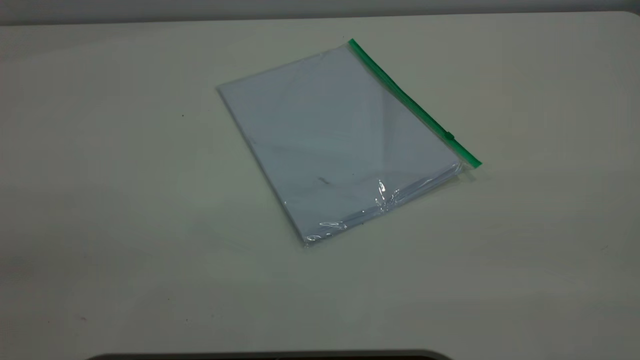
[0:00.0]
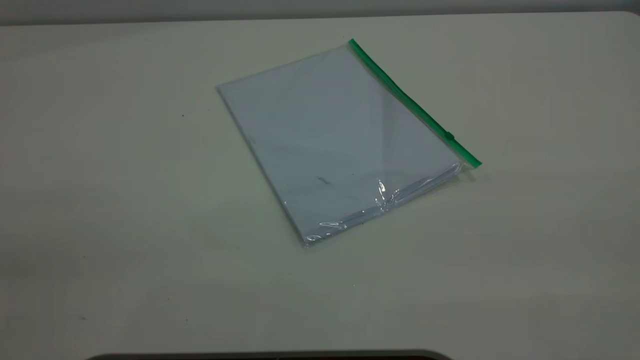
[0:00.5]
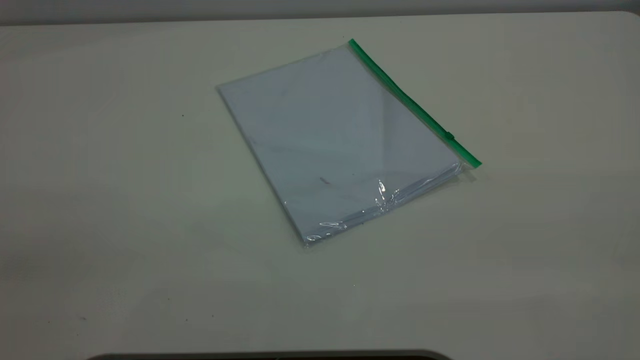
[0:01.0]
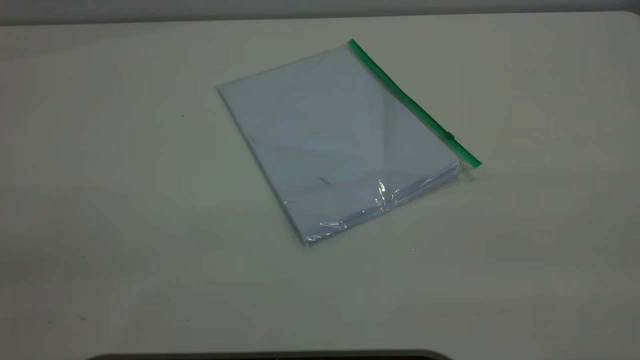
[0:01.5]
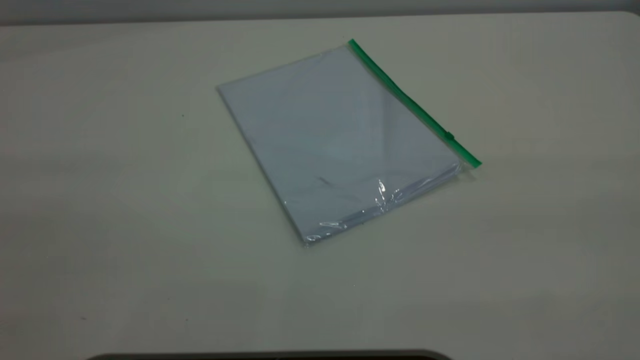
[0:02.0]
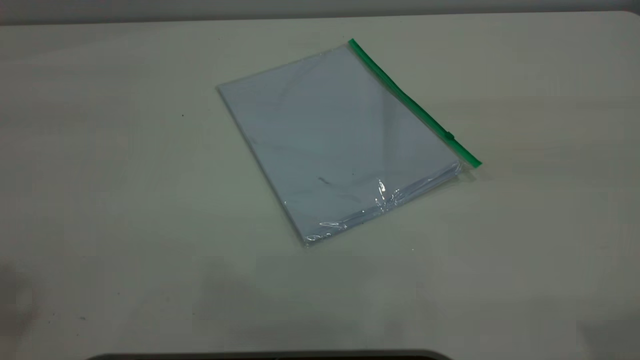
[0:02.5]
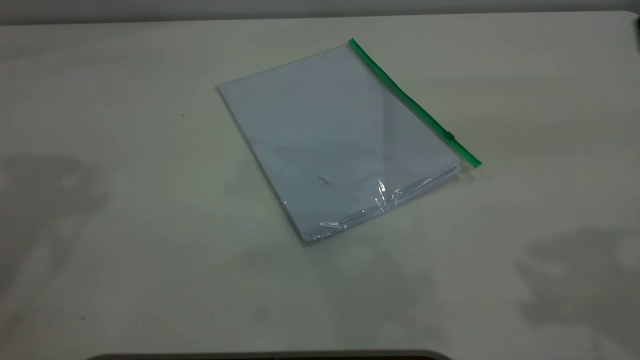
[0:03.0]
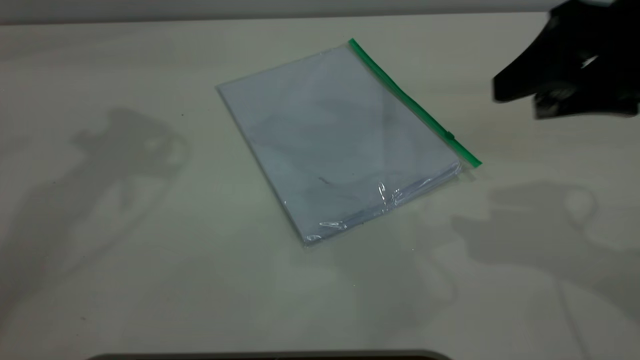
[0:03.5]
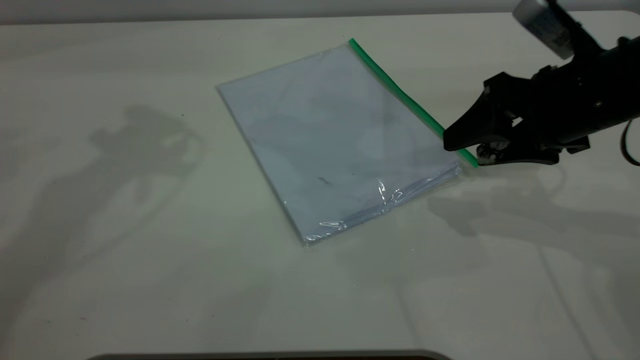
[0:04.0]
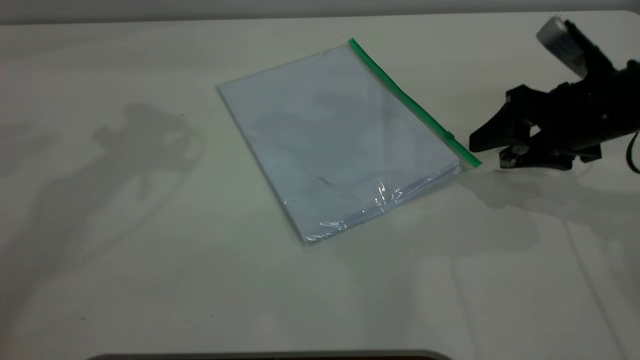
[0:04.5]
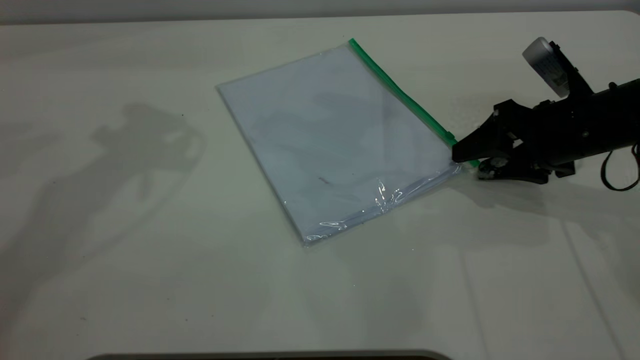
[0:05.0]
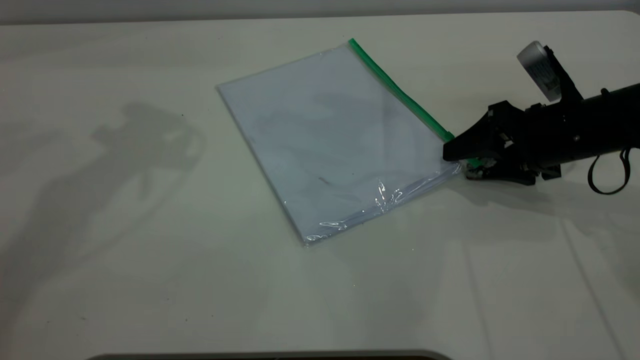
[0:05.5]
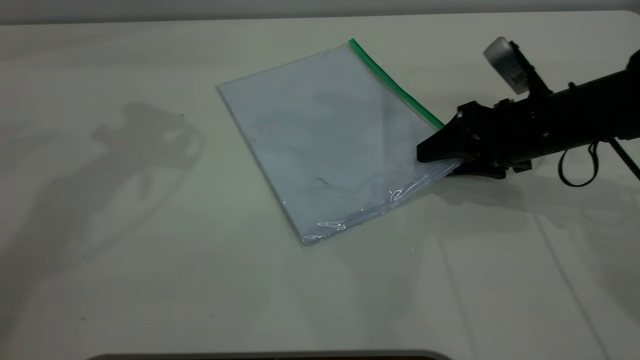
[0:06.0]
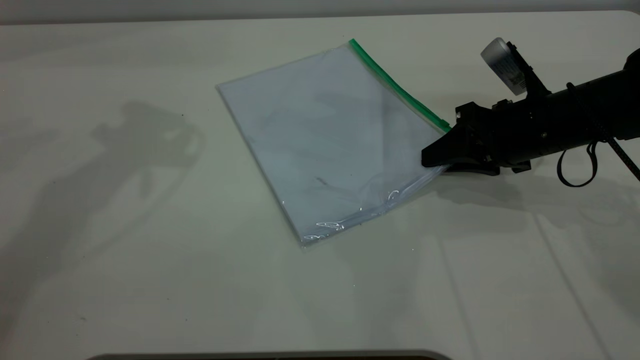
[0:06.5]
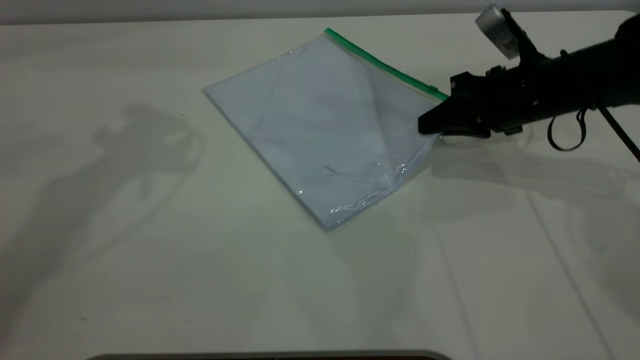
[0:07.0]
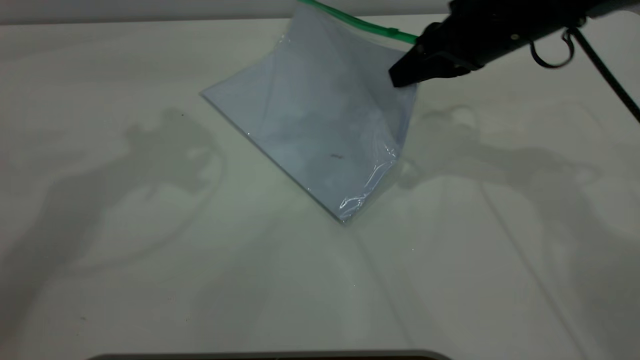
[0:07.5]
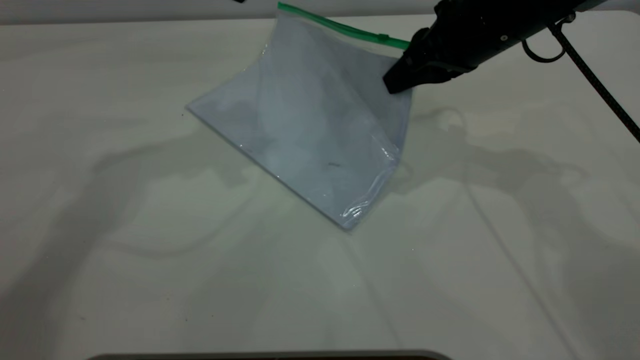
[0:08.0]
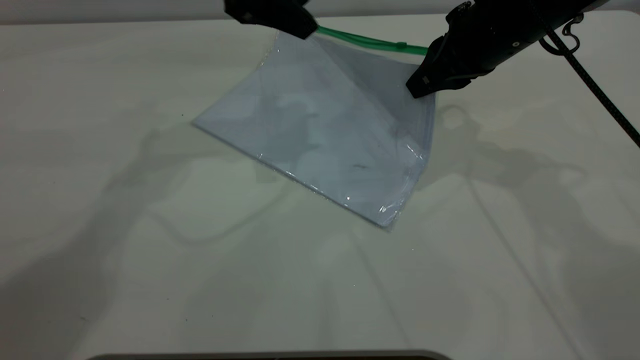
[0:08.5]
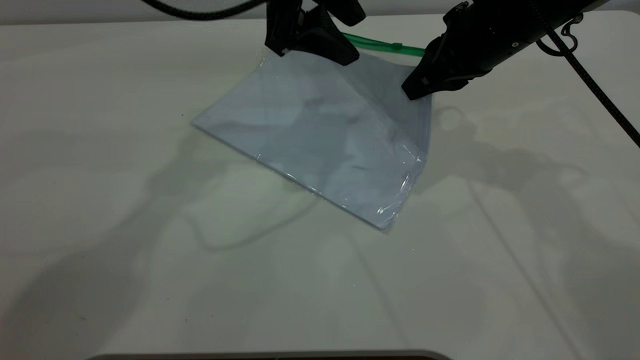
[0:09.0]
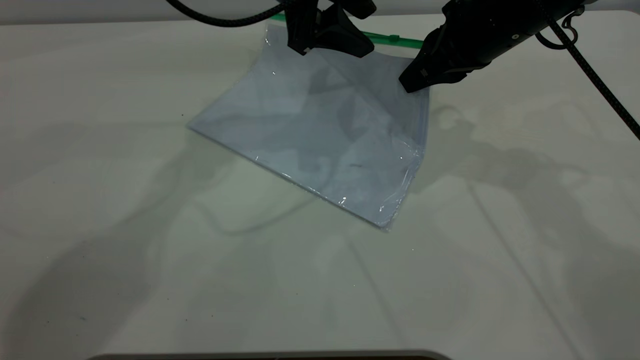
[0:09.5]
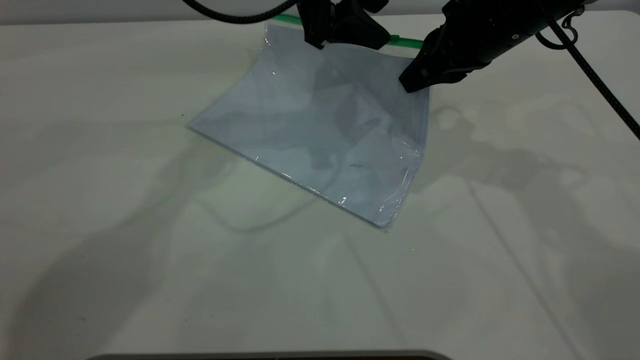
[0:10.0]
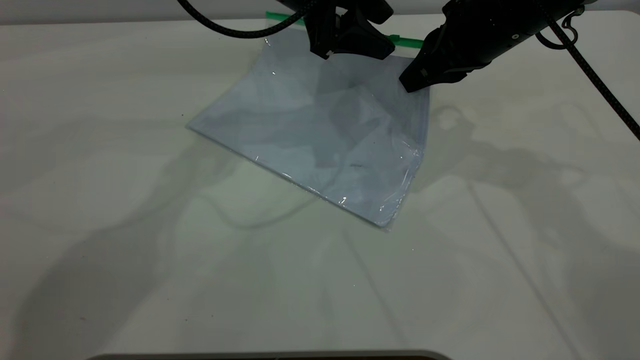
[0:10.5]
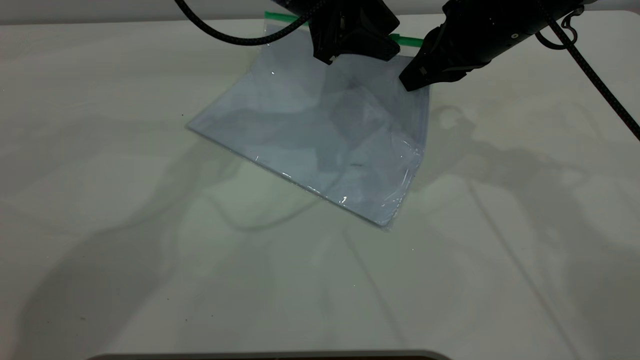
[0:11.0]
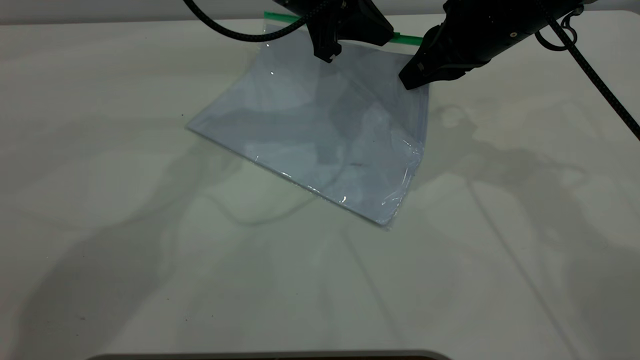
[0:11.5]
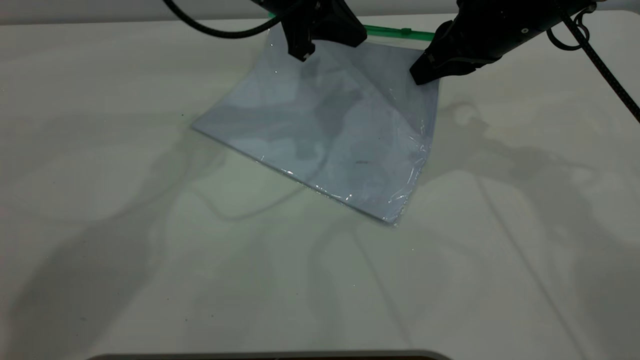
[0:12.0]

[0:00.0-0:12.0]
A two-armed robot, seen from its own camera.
Step, 0:00.0 to 0:07.0: Pick up the transparent plastic bag with the right gripper.
0:02.0 to 0:04.0: The right gripper travels forward and downward by about 40 cm.
0:04.0 to 0:06.0: The right gripper moves downward, approximately 10 cm.
0:06.0 to 0:08.0: The left gripper heads to the right and downward, covering some 10 cm. The right gripper travels upward and to the left by roughly 10 cm, and closes up.
0:08.0 to 0:10.0: The left gripper travels to the right and downward by some 15 cm.
0:10.0 to 0:12.0: The left gripper closes its fingers.

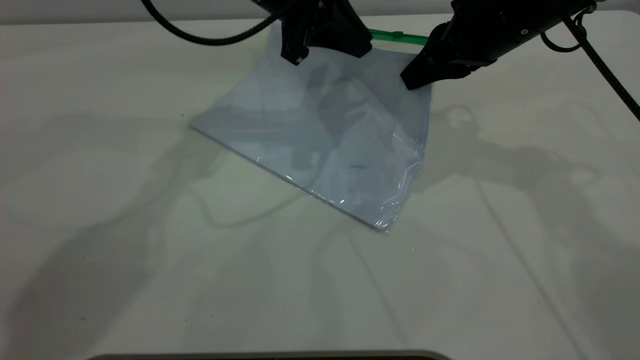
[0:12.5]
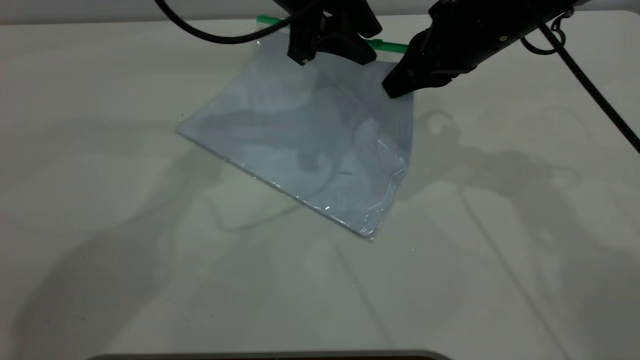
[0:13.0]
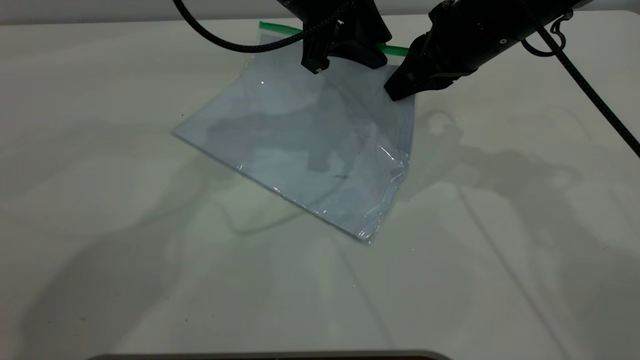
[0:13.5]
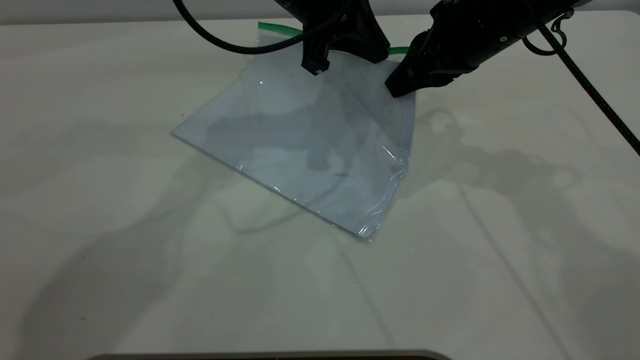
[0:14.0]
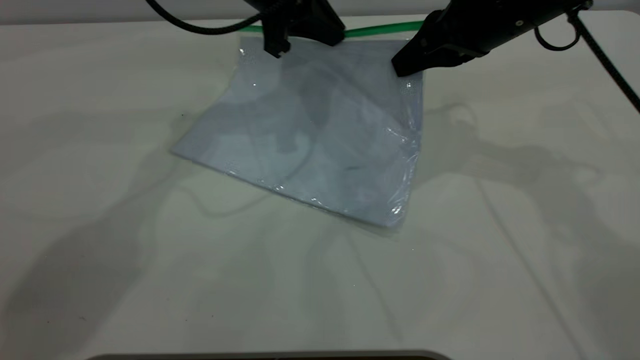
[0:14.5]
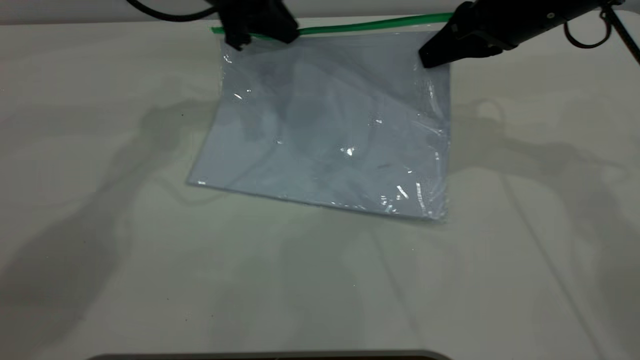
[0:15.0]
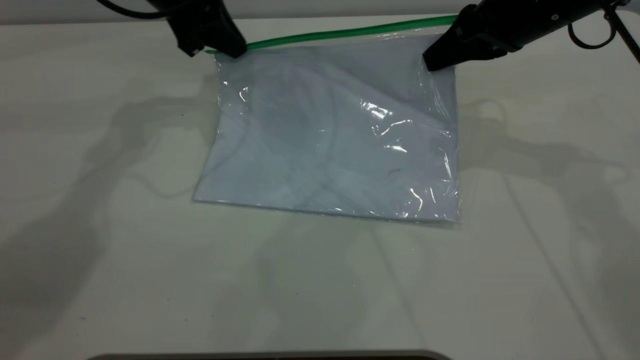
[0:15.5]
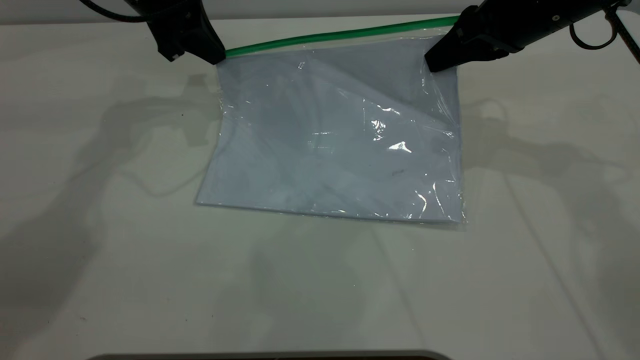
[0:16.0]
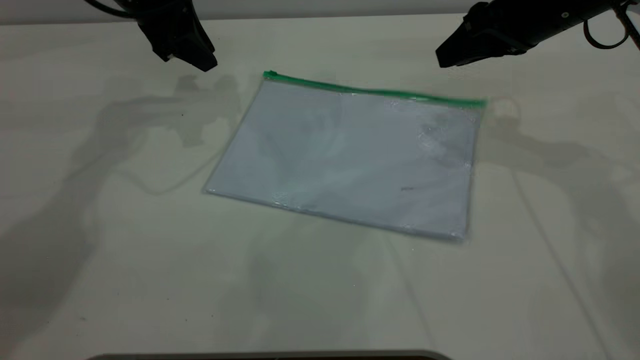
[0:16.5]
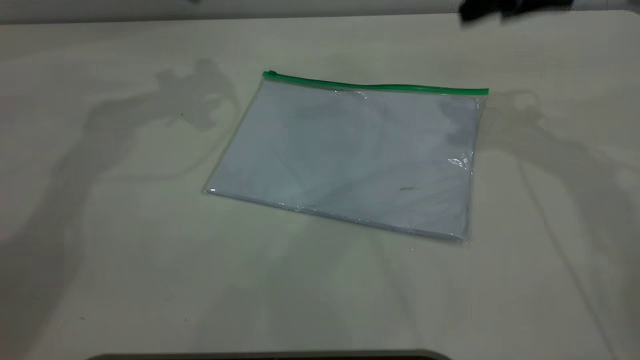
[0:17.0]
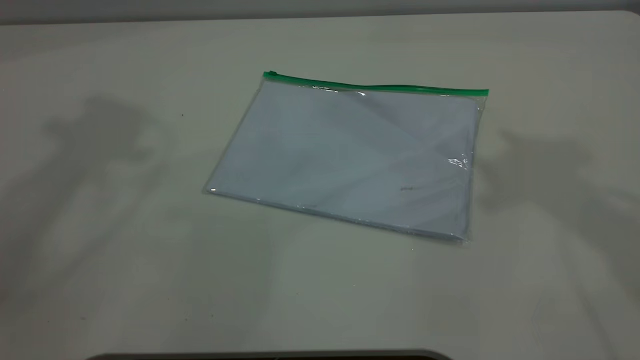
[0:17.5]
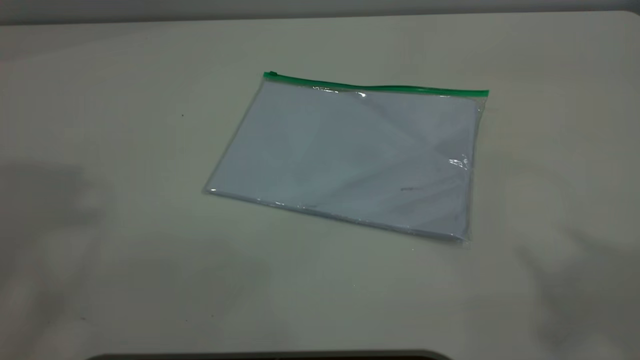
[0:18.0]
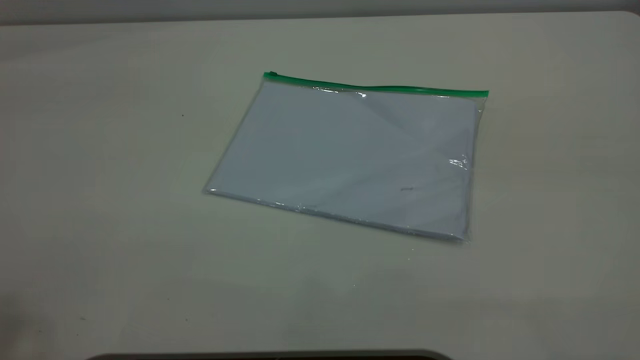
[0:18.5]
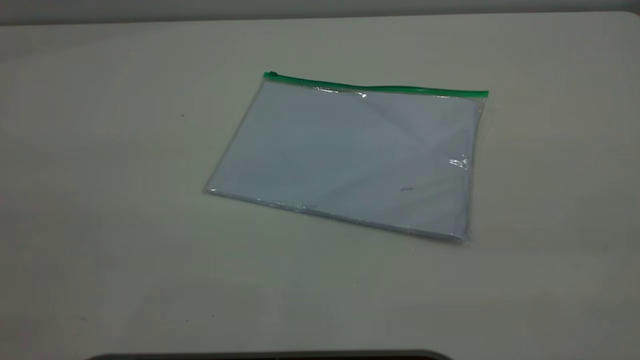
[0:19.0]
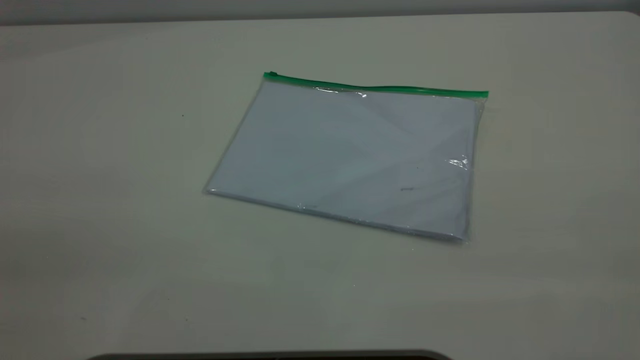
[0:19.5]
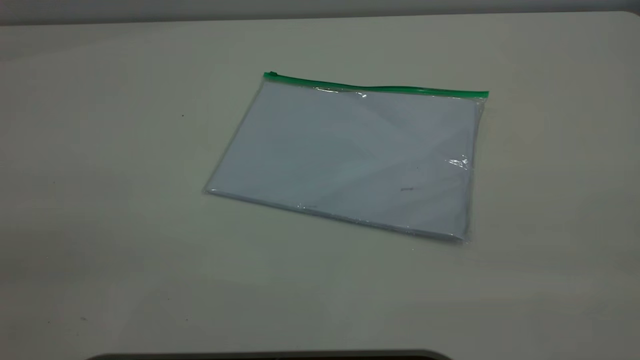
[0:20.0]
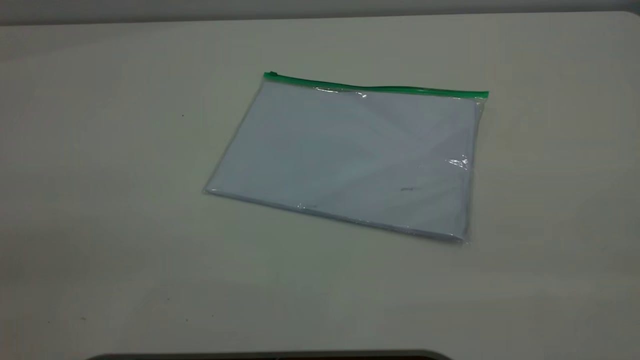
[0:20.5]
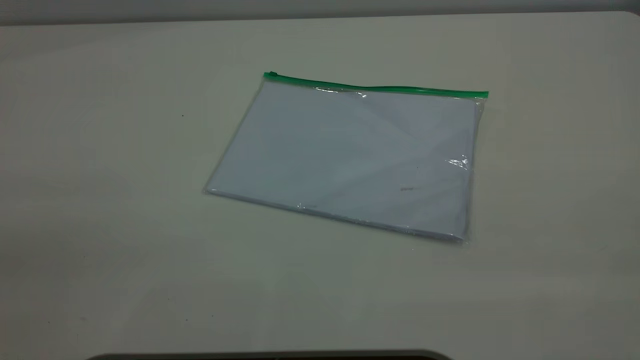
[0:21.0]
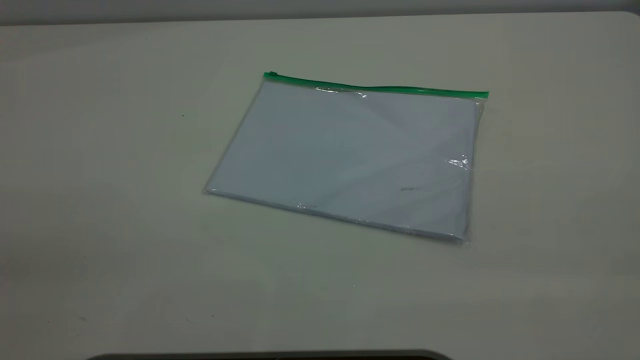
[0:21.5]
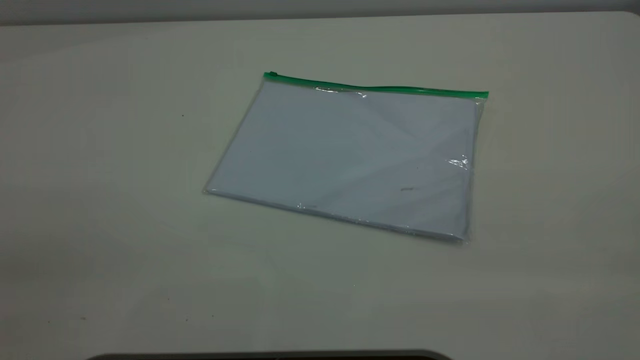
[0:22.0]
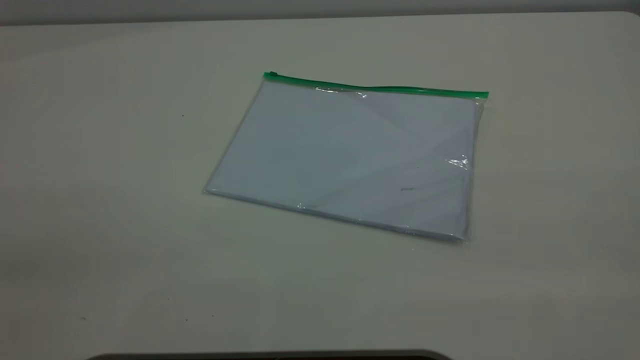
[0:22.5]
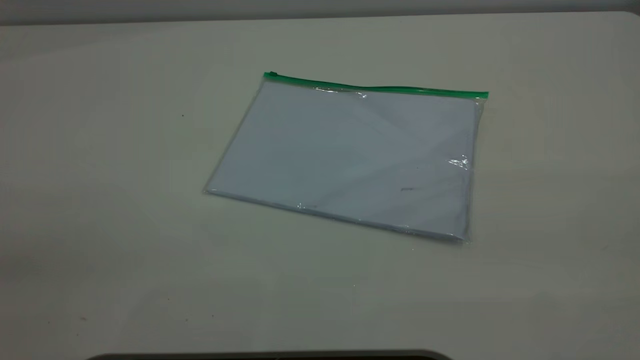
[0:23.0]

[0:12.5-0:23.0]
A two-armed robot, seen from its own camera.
Step, 0:12.5 to 0:16.0: Pulling up the zipper on the transparent plastic bag with the left gripper to close it.
0:12.5 to 0:14.5: The left gripper opens, then closes again.
0:14.5 to 0:16.5: The right gripper opens up, while the left gripper travels to the left by about 10 cm, and opens its fingers.
0:16.5 to 0:19.0: Both grippers move backward and upward, about 50 cm.
